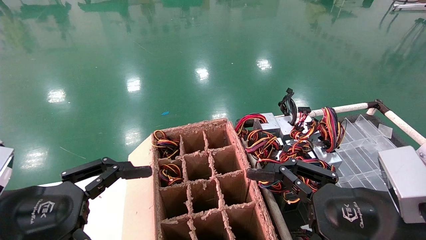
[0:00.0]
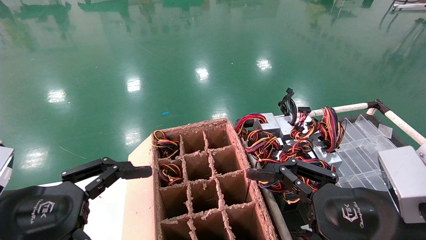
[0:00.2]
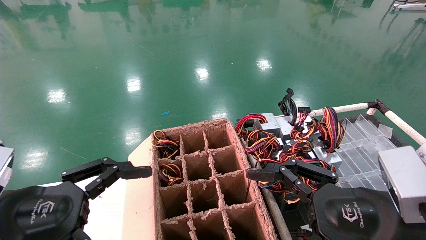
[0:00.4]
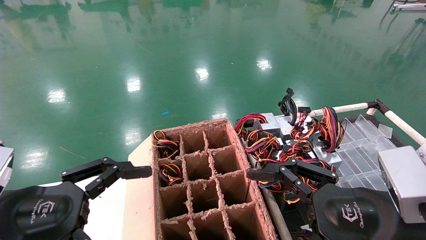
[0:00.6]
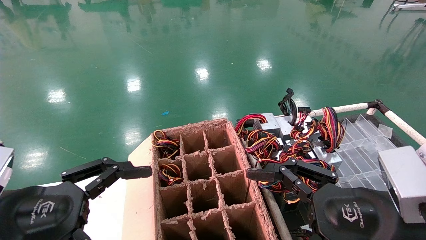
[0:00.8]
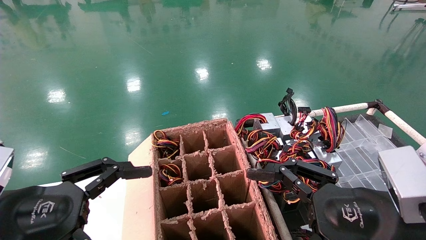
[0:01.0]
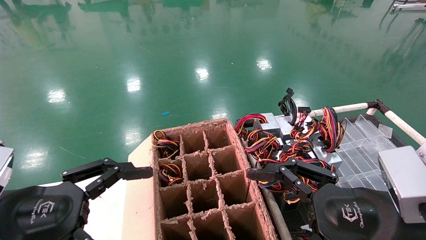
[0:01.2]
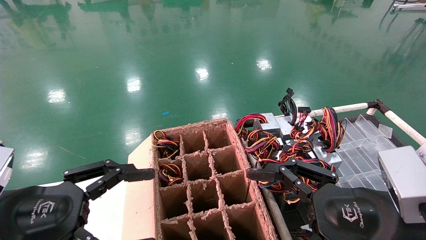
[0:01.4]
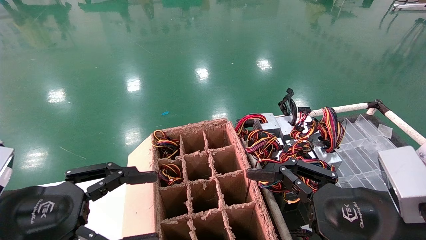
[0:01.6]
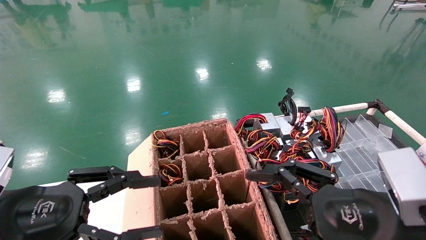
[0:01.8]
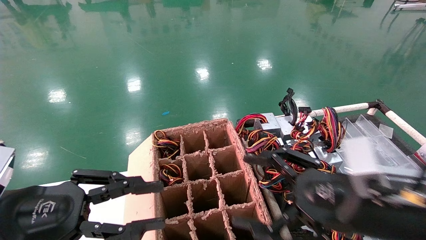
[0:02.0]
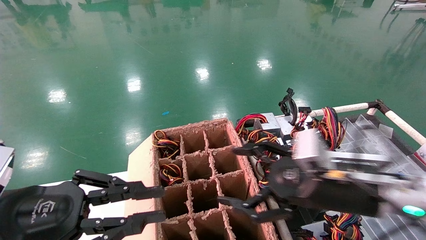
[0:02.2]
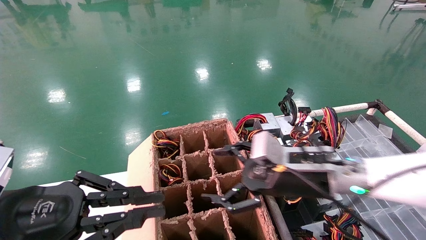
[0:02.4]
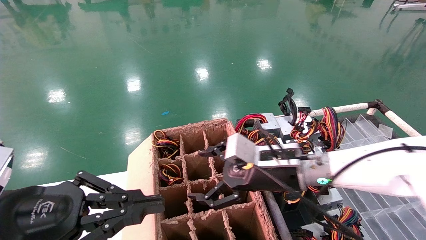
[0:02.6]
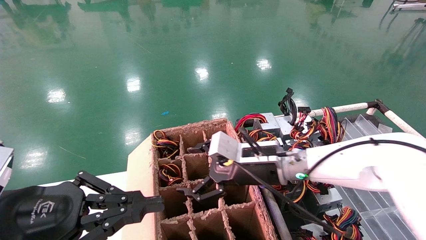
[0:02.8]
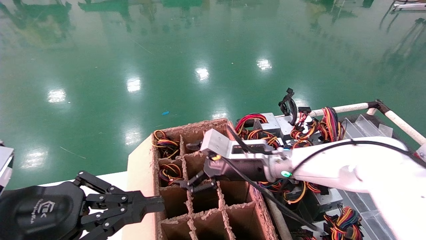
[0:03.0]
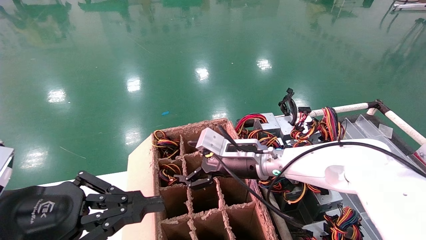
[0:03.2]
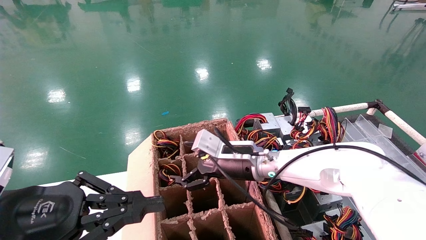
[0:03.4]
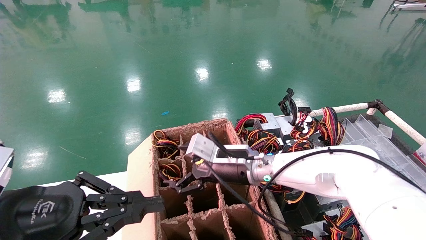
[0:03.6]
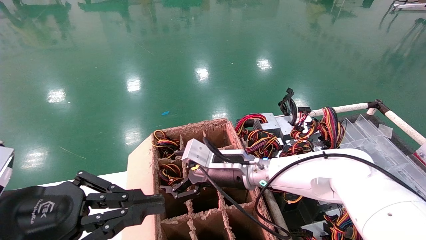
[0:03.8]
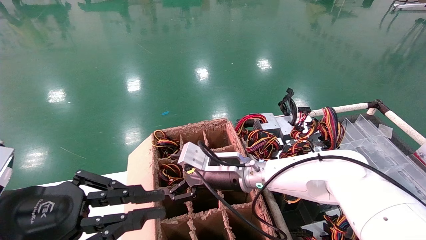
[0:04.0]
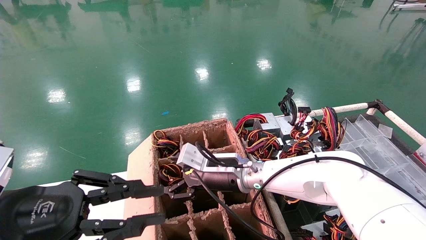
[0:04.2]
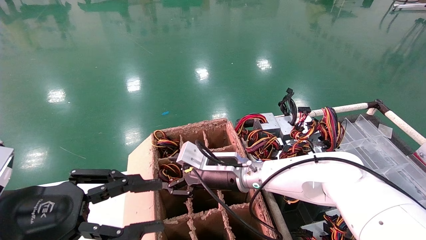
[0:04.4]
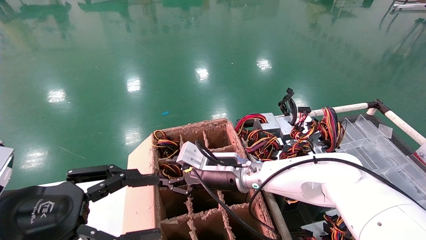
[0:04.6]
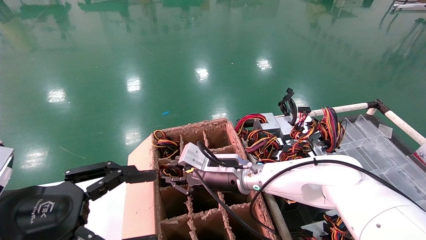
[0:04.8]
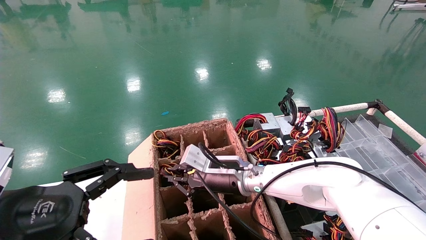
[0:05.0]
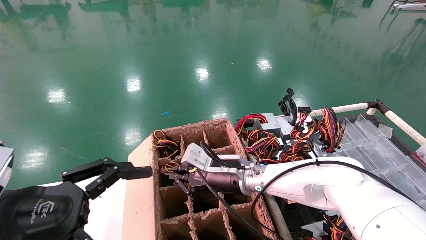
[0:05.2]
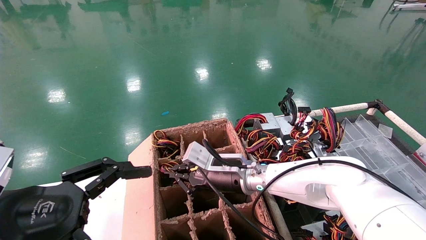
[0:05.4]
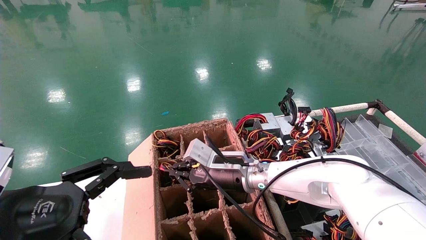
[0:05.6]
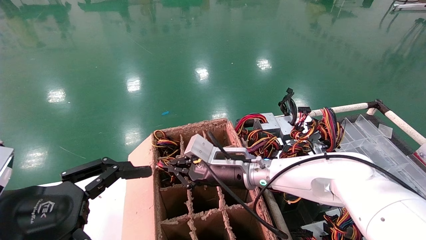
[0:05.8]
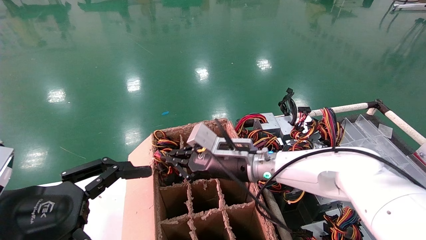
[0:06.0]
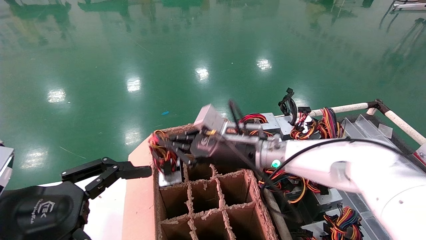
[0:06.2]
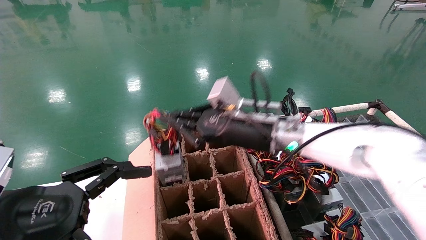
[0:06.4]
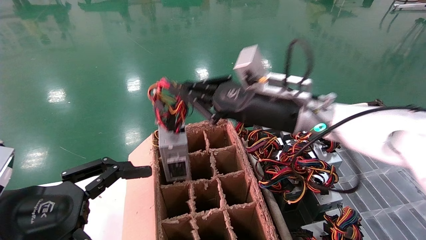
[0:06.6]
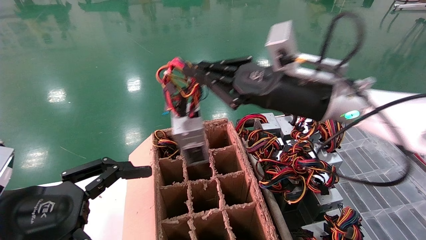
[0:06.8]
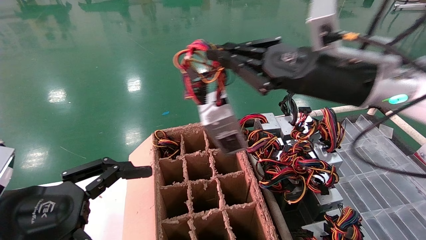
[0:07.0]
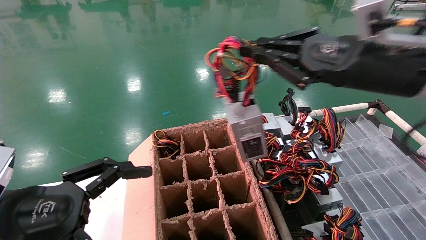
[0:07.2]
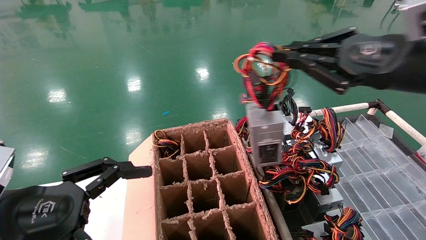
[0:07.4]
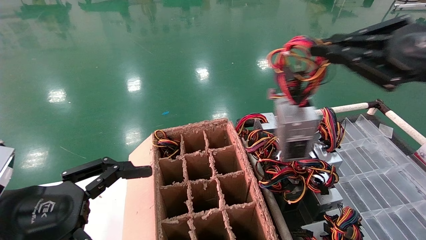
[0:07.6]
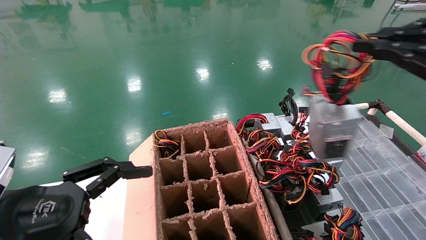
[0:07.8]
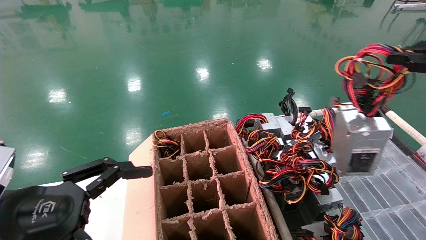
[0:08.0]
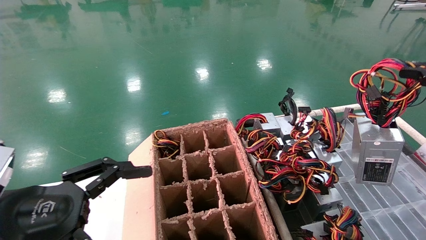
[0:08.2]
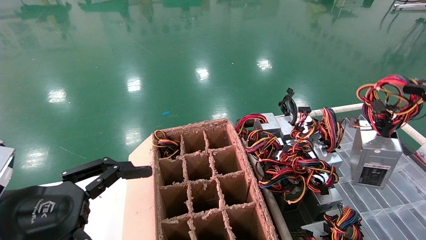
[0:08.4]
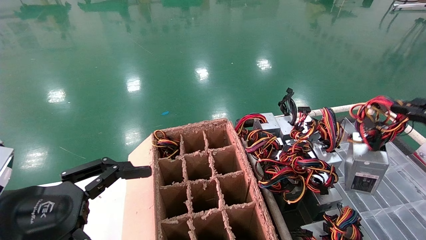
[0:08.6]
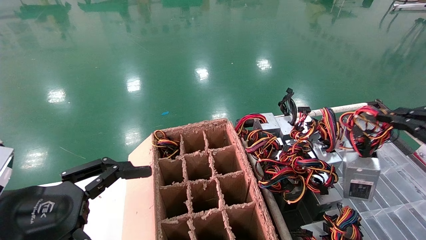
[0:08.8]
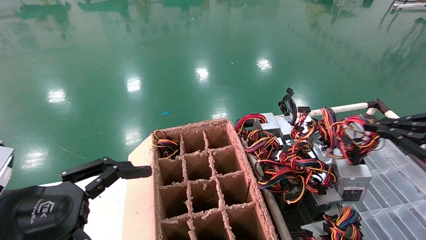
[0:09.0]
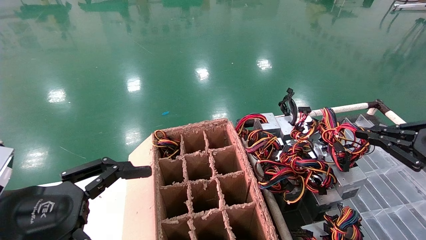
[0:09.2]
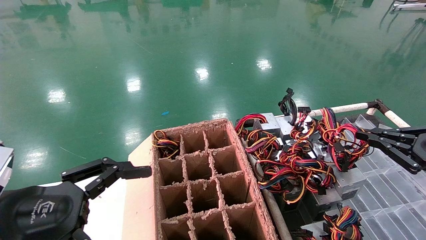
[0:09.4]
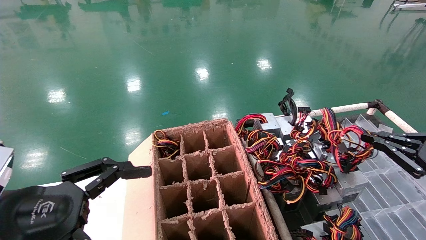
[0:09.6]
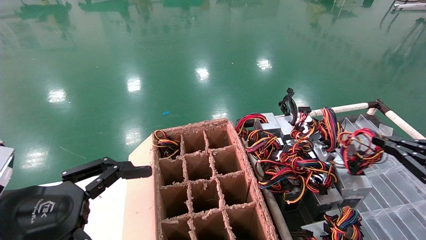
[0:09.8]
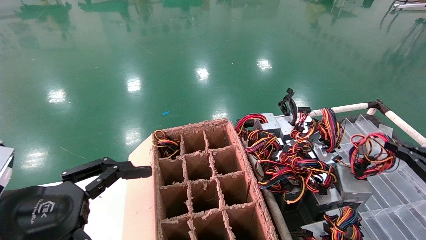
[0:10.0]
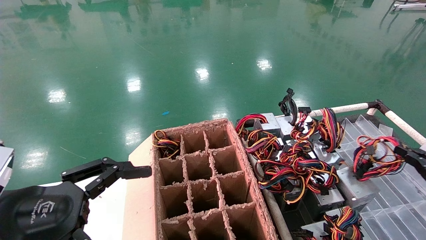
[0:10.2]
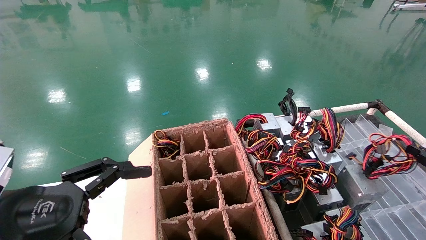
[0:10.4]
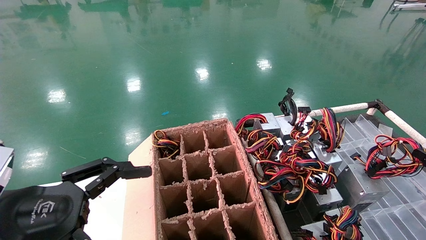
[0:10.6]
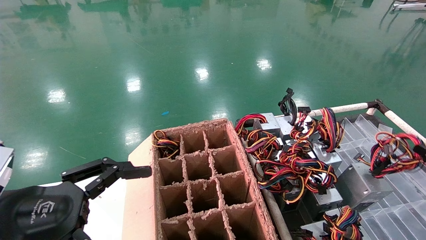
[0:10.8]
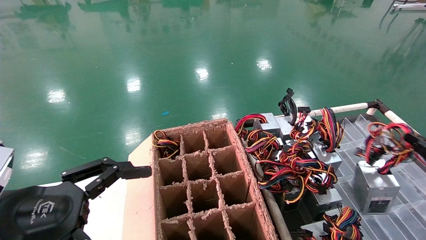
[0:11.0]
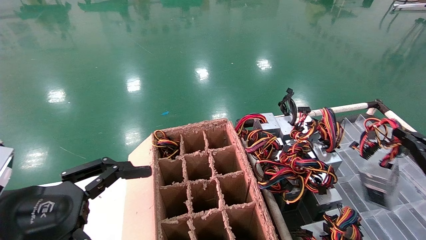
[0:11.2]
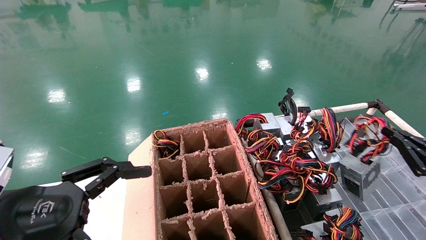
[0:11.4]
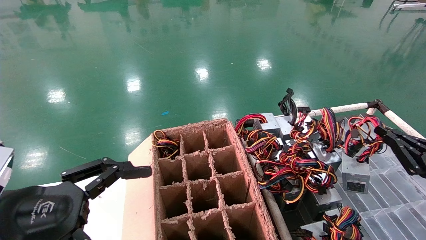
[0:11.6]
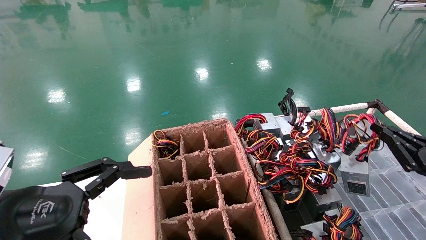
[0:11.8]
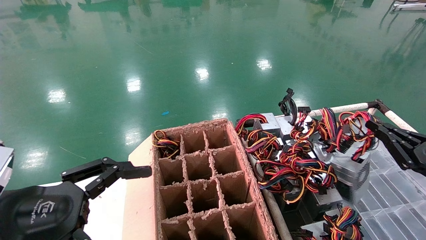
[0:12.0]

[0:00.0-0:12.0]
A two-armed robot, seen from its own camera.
Step, 0:01.6 to 0:05.2: Grab and lift the power supply from the large box.
0:00.0 to 0:01.6: Both grippers stay put.
0:01.6 to 0:03.0: The right gripper shifts approximately 25 cm forward and to the left, while the left gripper closes its fingers.
0:03.0 to 0:04.4: The right gripper travels to the left by some 5 cm.
0:04.4 to 0:06.0: The right gripper closes its fingers, while the left gripper opens its fingers.
0:06.0 to 0:07.6: The right gripper moves to the right, upward and backward, approximately 40 cm.
0:07.6 to 0:09.0: The right gripper travels downward and to the right by roughly 15 cm.
0:09.0 to 0:10.4: The right gripper is displaced downward and to the right by roughly 15 cm.
0:10.4 to 0:12.0: The right gripper shifts roughly 5 cm to the left.

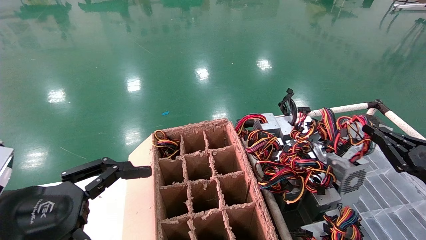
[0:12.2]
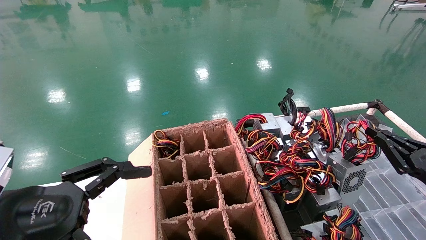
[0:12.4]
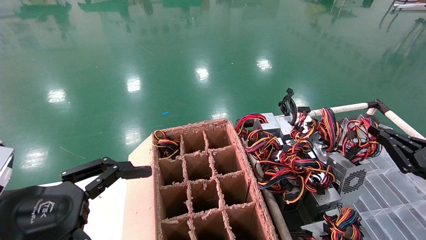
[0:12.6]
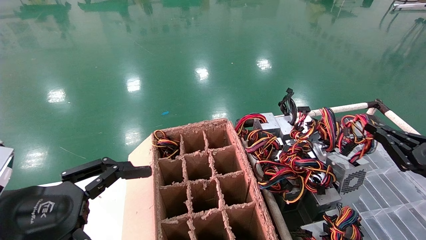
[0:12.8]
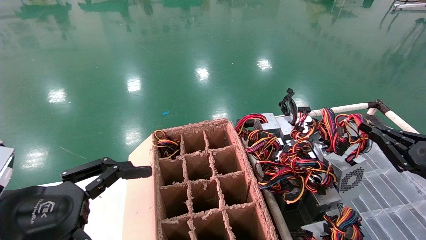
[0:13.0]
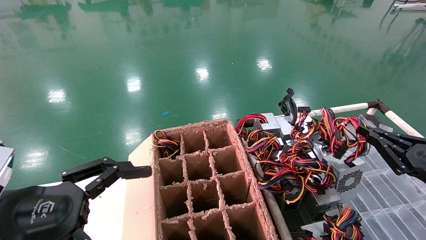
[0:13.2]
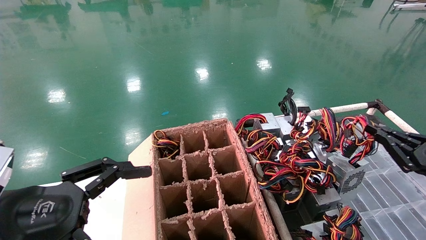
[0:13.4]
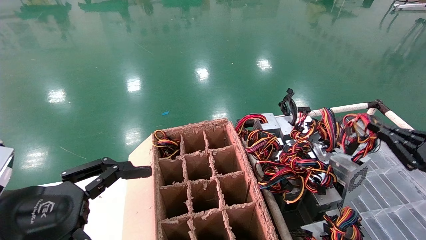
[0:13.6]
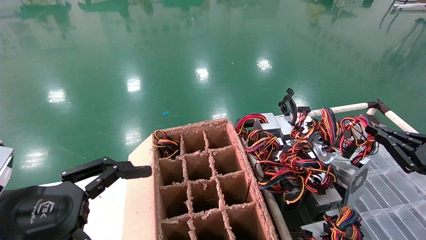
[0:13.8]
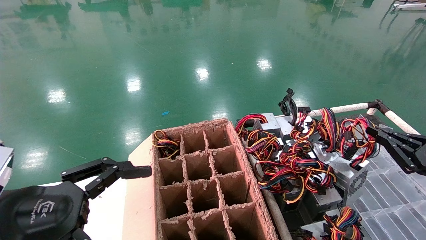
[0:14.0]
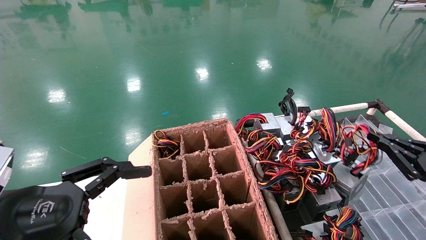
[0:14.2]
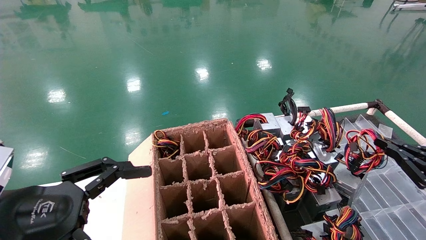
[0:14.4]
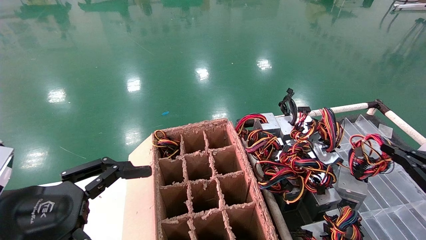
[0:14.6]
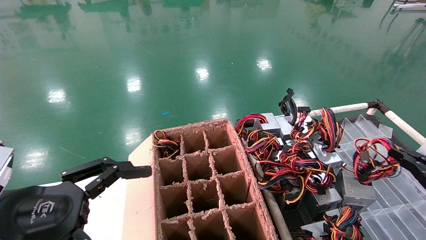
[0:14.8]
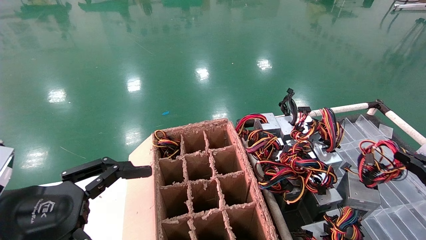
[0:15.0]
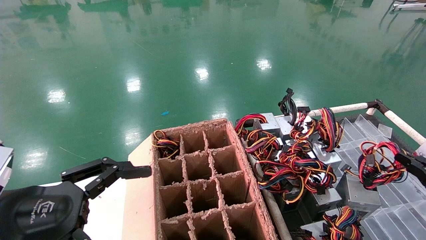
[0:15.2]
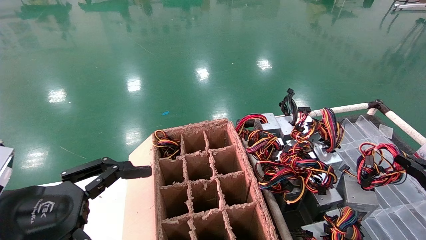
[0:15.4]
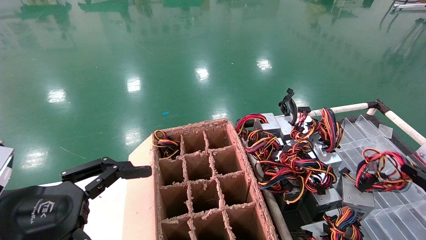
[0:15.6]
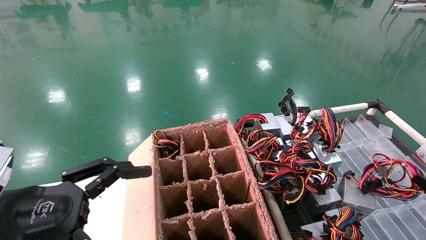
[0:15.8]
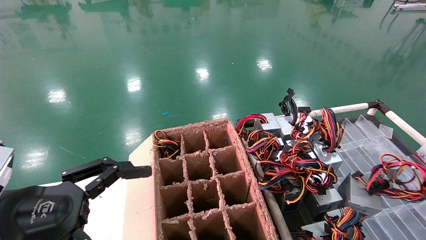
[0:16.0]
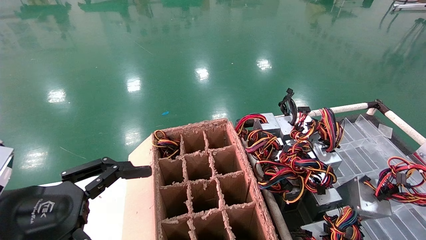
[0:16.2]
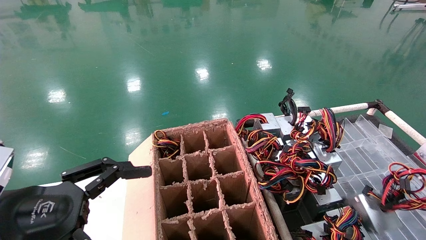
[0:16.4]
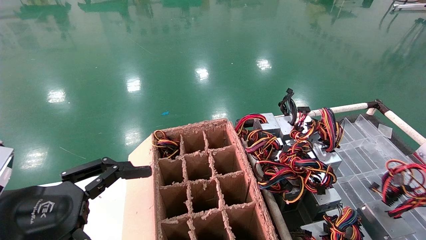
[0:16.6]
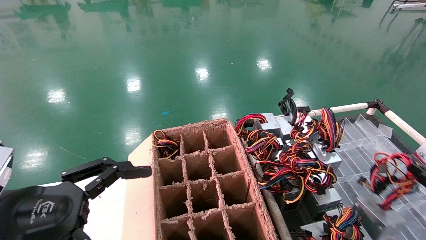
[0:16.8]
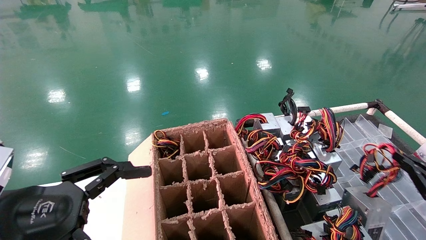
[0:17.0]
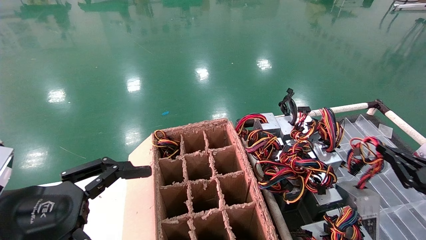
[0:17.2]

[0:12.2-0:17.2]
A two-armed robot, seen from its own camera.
0:12.2 to 0:13.8: The grippers move only a little.
0:13.8 to 0:15.6: The right gripper goes roughly 10 cm downward and backward.
0:15.6 to 0:17.2: The right gripper is displaced forward by about 10 cm.
